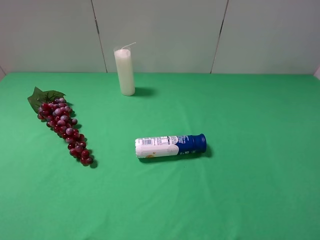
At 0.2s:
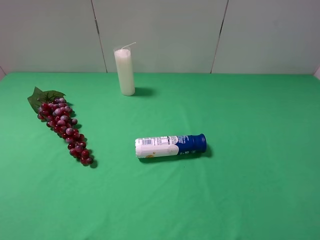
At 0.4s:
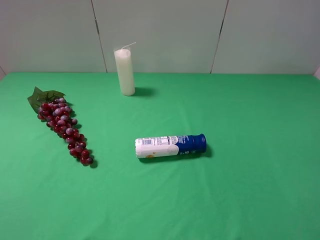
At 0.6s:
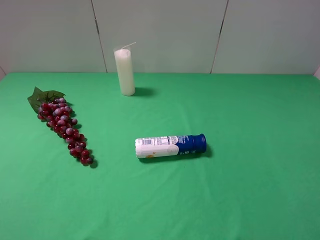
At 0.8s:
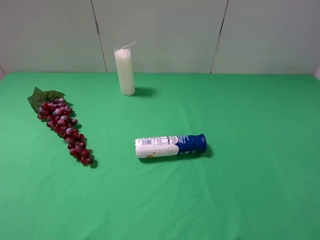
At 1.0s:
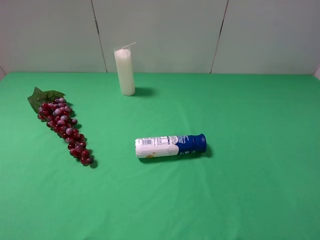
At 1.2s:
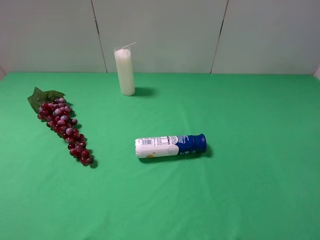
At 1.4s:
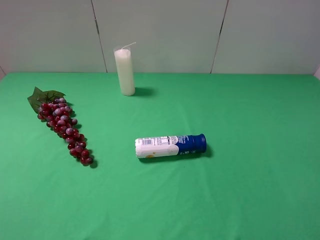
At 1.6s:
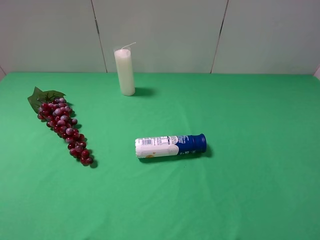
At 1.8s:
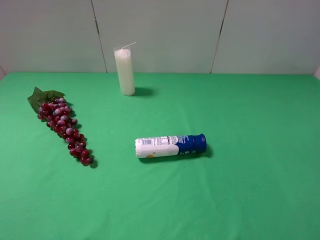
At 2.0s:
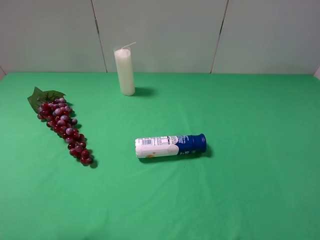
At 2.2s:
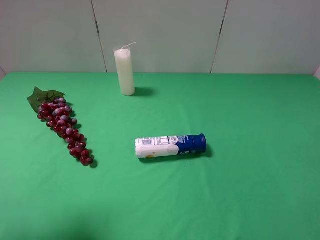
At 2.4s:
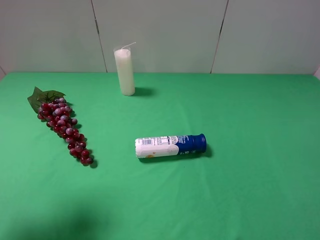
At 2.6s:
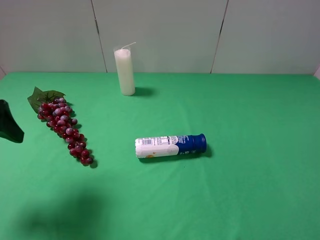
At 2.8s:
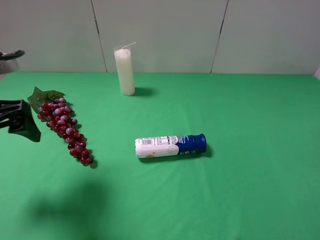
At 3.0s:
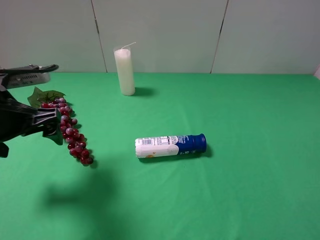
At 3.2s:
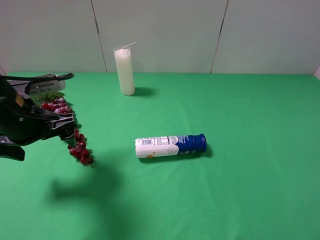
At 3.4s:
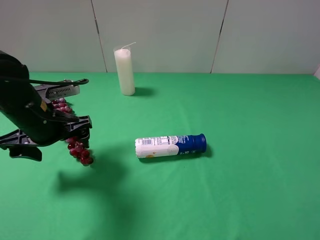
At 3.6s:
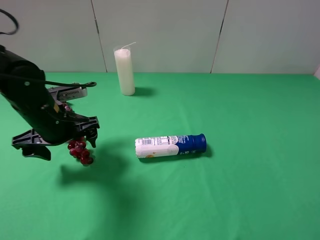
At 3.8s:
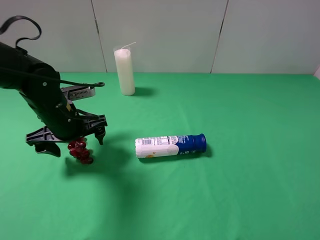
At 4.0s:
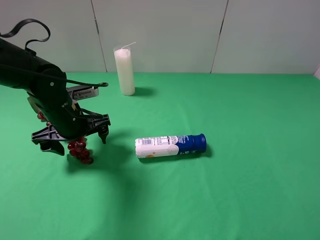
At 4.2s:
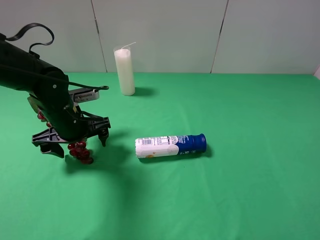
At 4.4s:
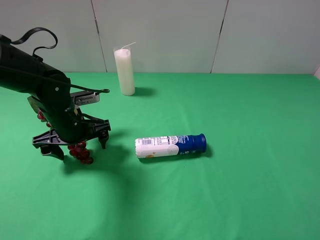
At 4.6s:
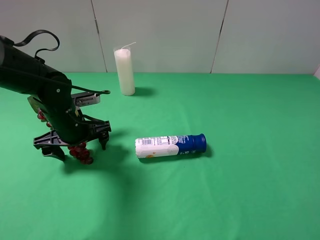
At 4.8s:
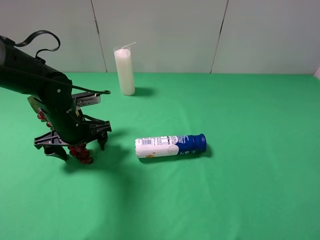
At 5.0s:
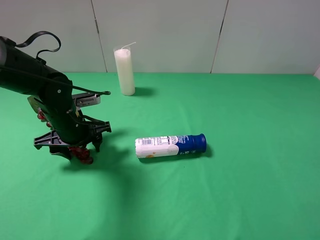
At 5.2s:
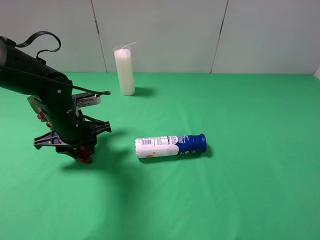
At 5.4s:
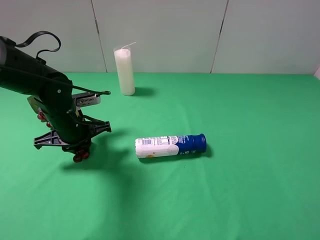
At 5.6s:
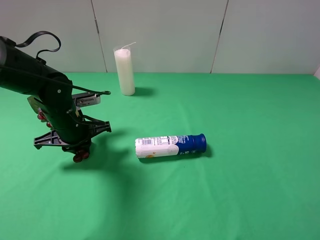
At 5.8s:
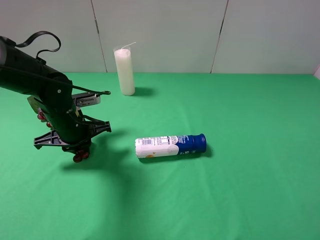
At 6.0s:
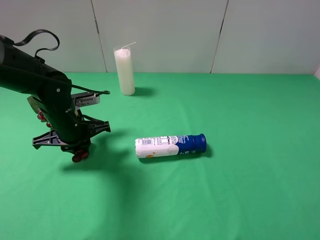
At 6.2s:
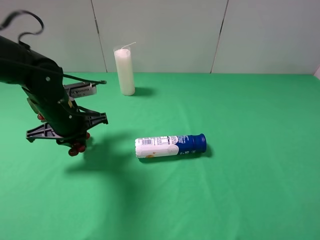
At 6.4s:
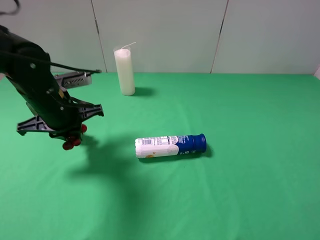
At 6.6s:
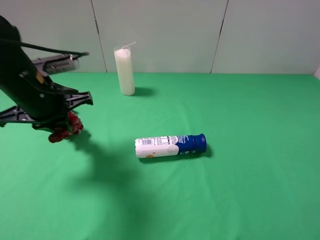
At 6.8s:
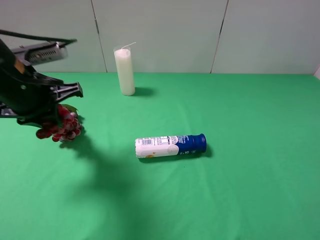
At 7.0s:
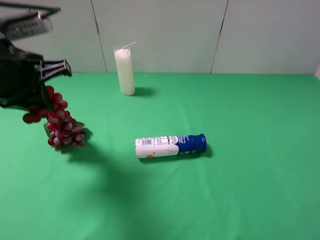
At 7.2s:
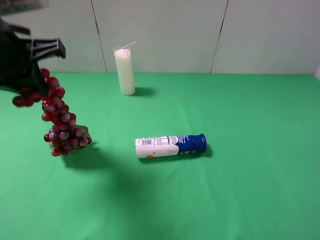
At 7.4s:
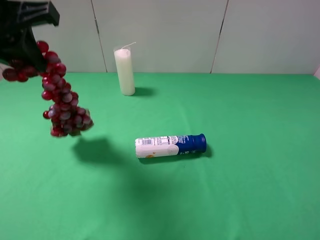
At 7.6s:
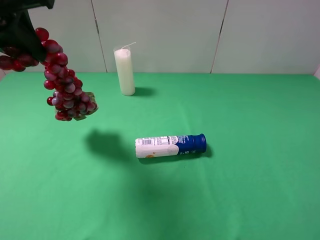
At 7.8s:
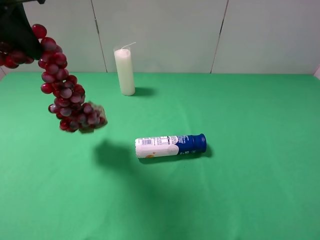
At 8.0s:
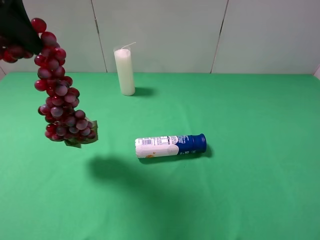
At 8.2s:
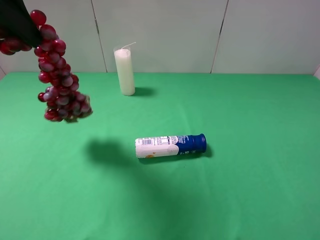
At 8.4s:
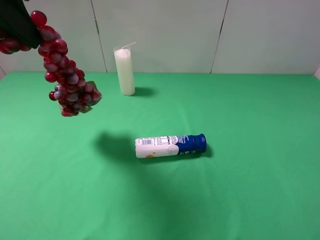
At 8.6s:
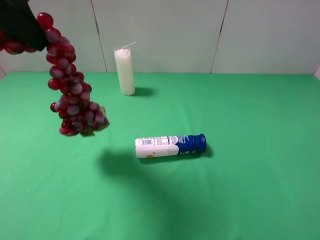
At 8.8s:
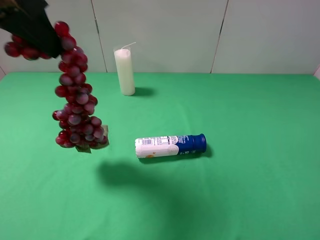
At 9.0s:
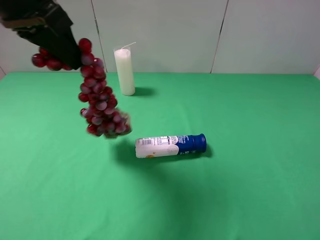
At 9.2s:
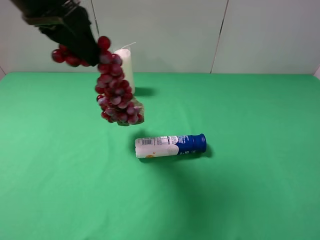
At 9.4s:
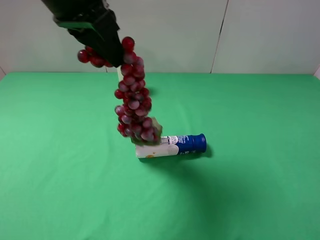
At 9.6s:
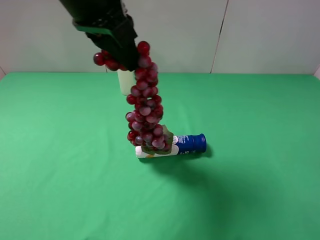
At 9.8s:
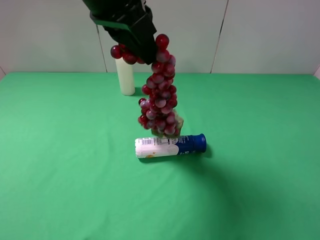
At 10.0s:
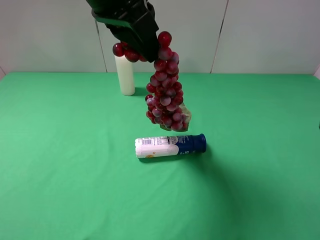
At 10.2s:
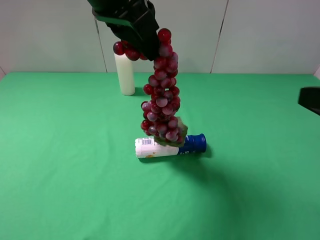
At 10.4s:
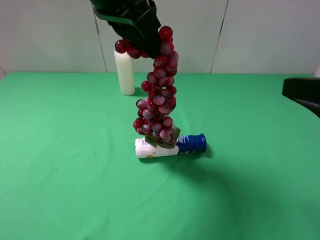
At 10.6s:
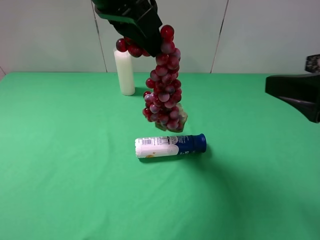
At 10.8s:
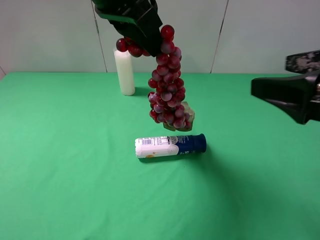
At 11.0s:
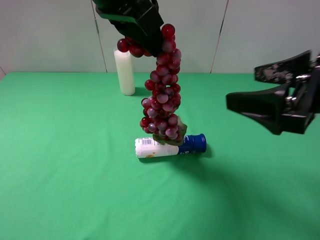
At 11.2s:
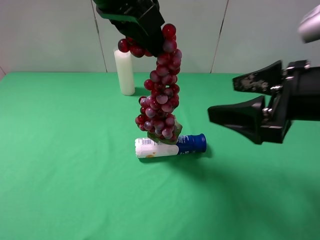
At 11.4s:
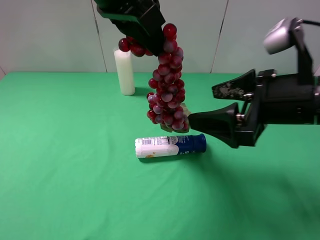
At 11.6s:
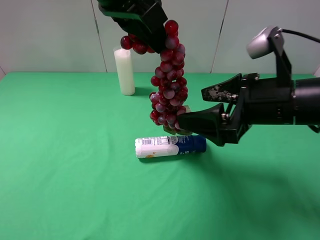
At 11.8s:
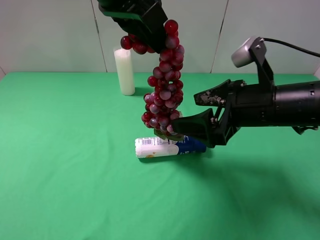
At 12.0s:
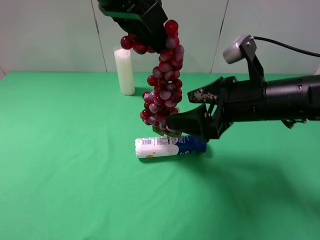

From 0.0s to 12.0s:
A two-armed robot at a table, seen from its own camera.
Task of the whole recording: use the left gripper to pick up the item and transfer it from the left gripper to the right gripper.
Step, from 0.0s to 5.4s: Use the left gripper to grab the grape on the left side of the table.
From 1.6s to 3.0s: The left gripper moves forward, to the right and downward, roughly 25 cm.
From 3.0s to 4.4s: The left gripper is displaced downward, forward and to the right by approximately 15 cm.
From 4.4s to 6.0s: The left gripper closes.
From 6.0s to 7.6s: The left gripper travels upward by approximately 25 cm.
From 7.6s to 9.0s: The left gripper moves about 5 cm.
From 9.0s to 10.4s: The right gripper travels forward by about 10 cm. Meanwhile the left gripper heads to the right, covering about 10 cm.
From 10.4s to 12.0s: The right gripper is displaced forward, to the left and downward by some 15 cm.

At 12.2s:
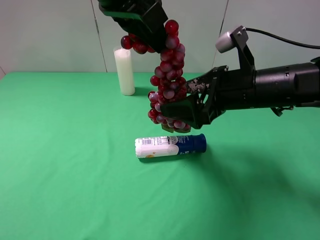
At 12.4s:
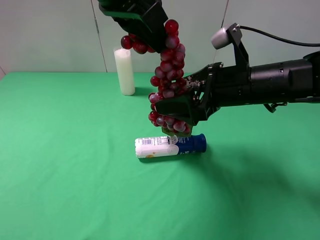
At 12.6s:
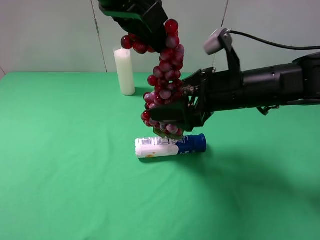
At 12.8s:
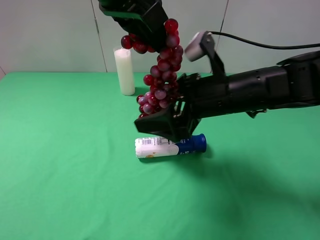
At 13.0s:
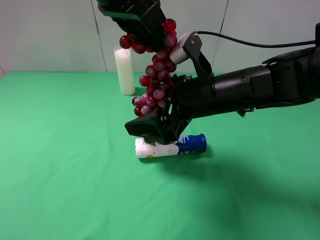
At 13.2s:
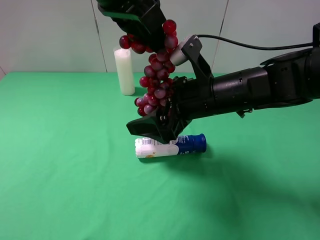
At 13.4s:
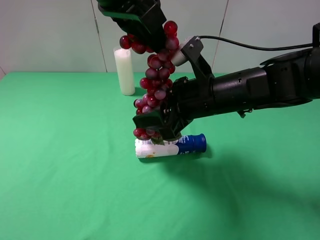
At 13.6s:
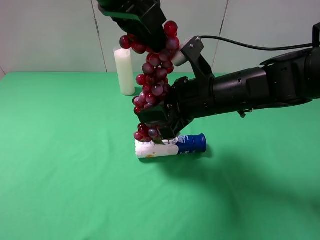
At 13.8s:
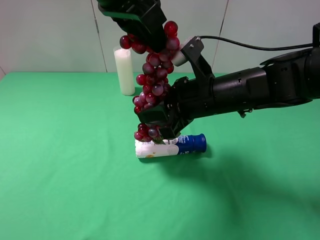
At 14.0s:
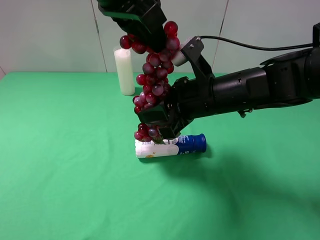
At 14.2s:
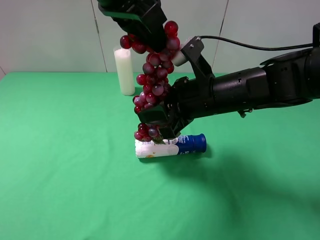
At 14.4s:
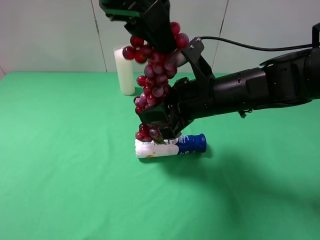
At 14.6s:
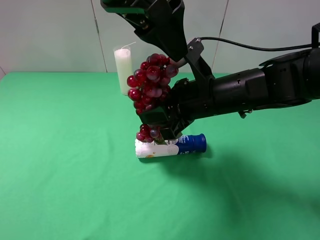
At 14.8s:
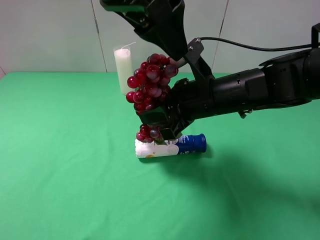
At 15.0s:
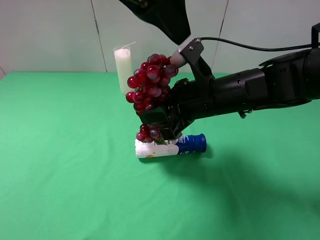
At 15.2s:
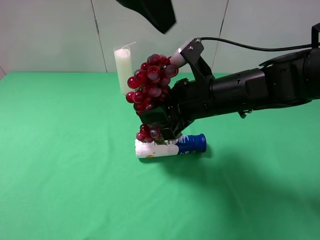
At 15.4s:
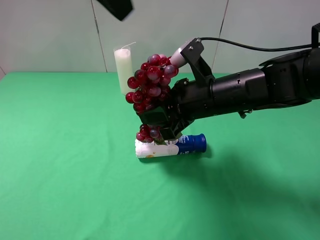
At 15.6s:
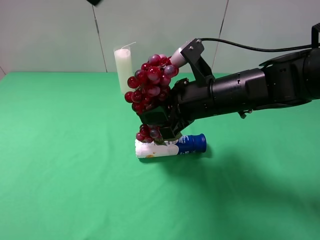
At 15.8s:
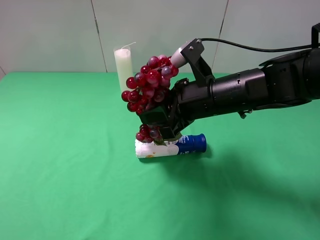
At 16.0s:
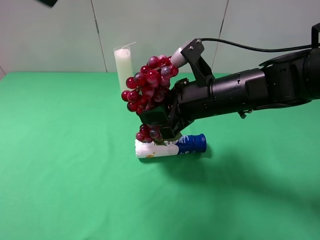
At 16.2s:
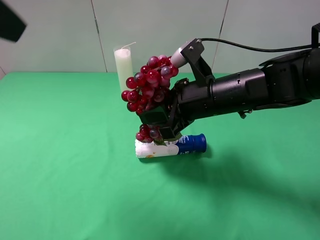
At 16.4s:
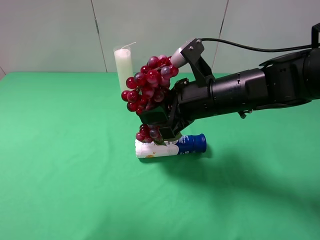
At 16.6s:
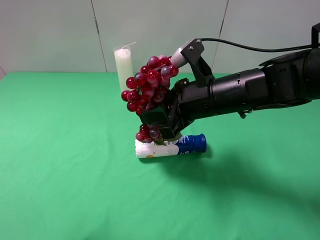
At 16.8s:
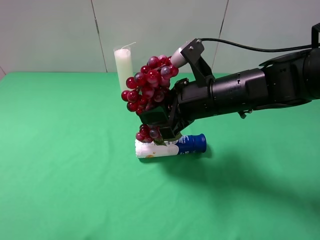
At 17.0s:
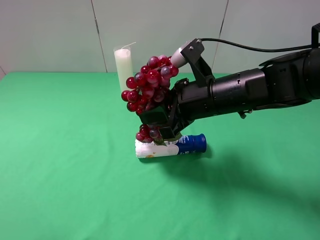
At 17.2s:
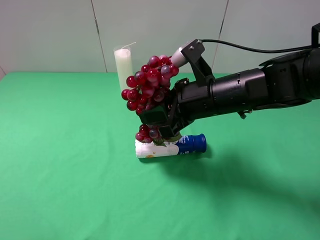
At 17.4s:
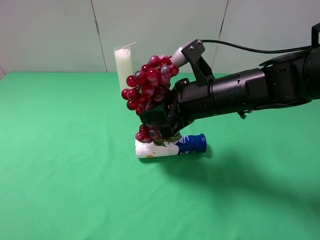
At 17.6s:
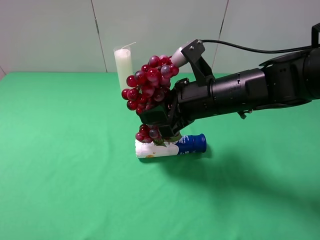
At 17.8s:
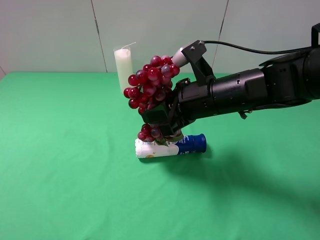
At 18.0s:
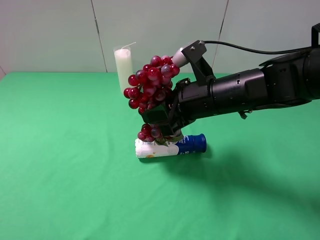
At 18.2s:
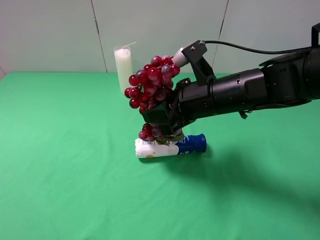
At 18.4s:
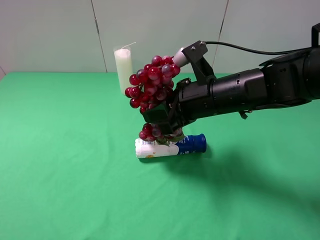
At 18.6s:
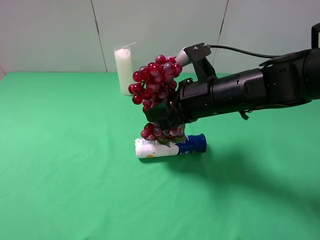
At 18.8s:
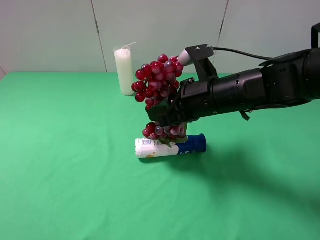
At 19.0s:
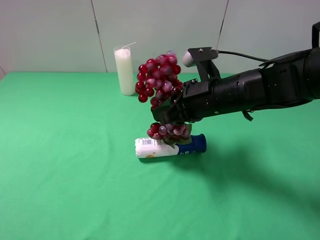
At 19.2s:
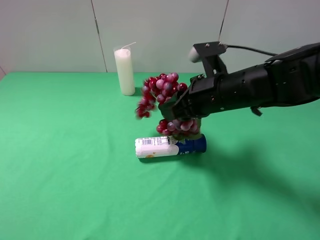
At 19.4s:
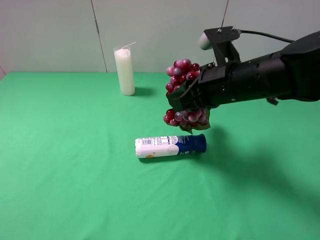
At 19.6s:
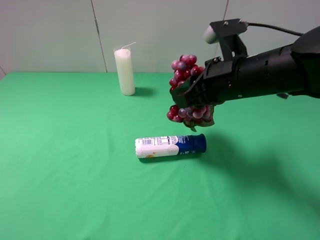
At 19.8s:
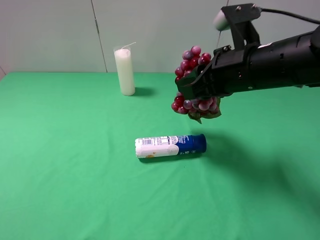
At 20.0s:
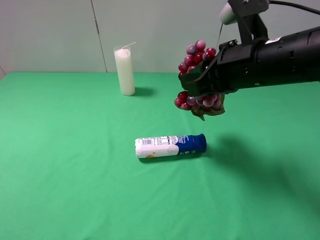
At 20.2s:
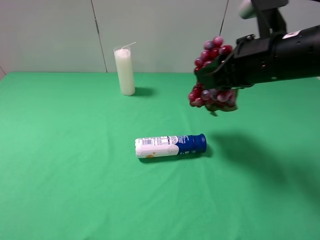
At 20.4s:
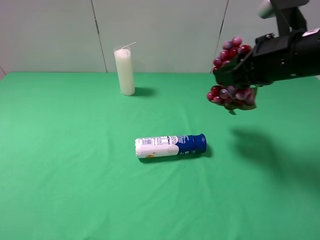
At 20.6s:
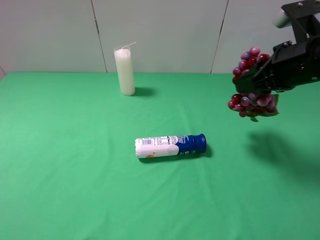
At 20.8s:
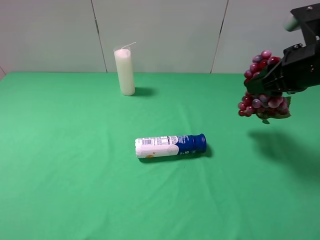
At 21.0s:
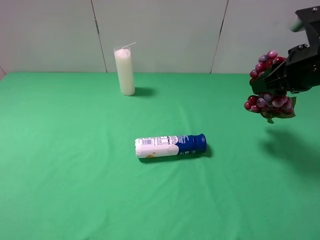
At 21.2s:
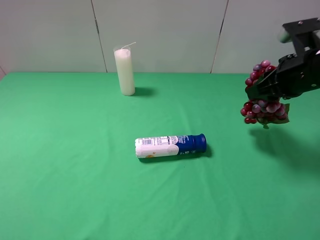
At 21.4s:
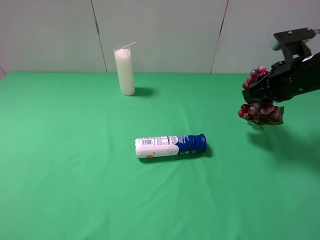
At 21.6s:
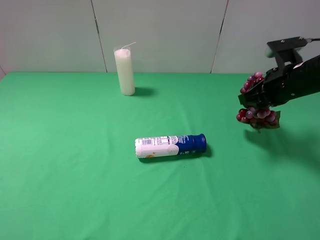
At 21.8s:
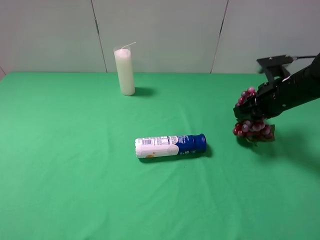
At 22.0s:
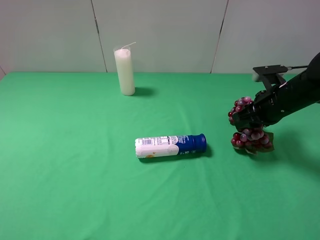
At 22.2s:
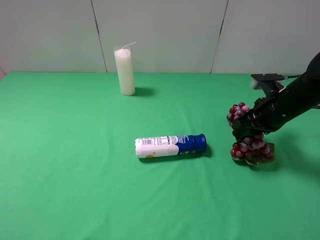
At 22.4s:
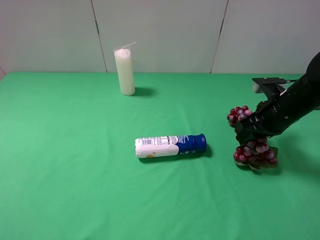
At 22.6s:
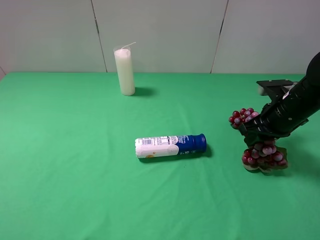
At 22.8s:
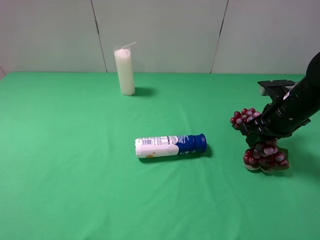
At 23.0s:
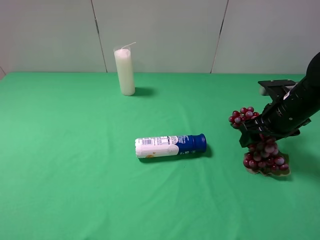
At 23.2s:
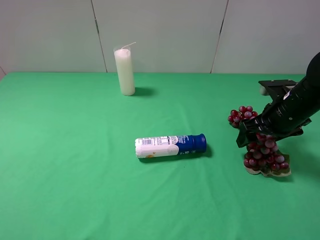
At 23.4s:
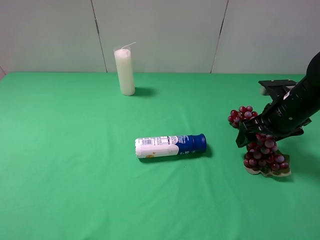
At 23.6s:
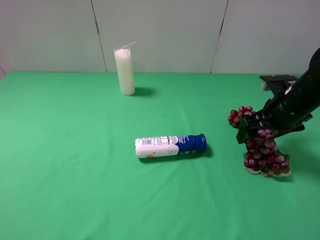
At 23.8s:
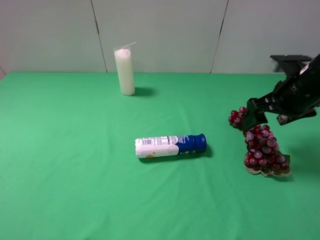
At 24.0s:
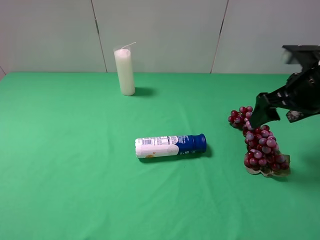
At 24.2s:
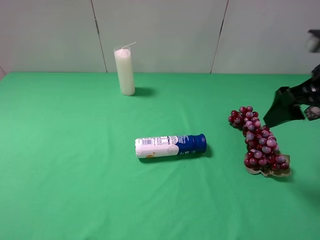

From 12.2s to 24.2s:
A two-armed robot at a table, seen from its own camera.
Task of the whole recording: use the left gripper to pick up the item and transfer it from the left gripper to the right gripper.
Step, from 12.2s to 14.8s: Pass the grape to the right gripper.
Step, from 15.0s to 23.6s: The right gripper places grape on the right side of the table.
From 12.2s to 13.8s: The right gripper moves to the left, about 5 cm, and closes up.
From 13.8s to 15.2s: The left gripper moves about 5 cm, and opens its fingers.
From 15.2s to 16.6s: The left gripper shifts approximately 25 cm to the left and backward.
From 16.6s to 18.2s: The left gripper travels downward, backward and to the left by roughly 15 cm.
From 18.2s to 19.8s: The right gripper moves upward, some 5 cm.
From 19.8s to 21.2s: The right gripper shifts approximately 10 cm to the right.
From 21.2s to 22.6s: The right gripper is displaced downward by about 10 cm.
From 22.6s to 24.2s: The right gripper travels upward and backward by approximately 15 cm, and opens up.
